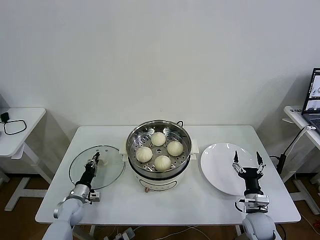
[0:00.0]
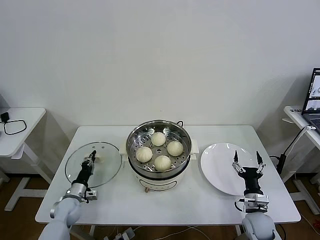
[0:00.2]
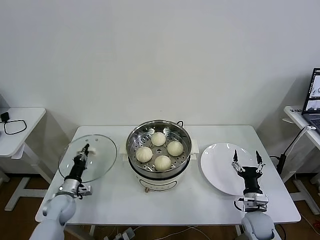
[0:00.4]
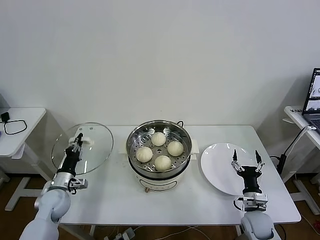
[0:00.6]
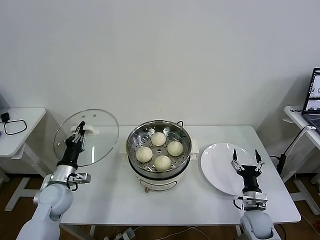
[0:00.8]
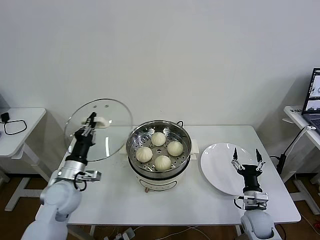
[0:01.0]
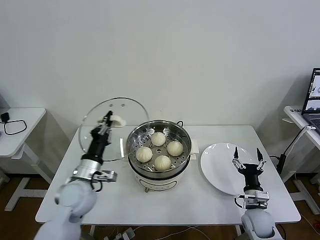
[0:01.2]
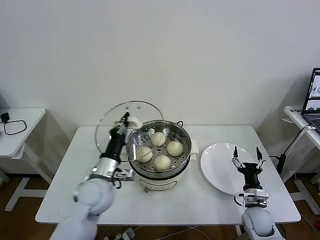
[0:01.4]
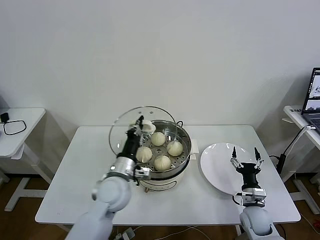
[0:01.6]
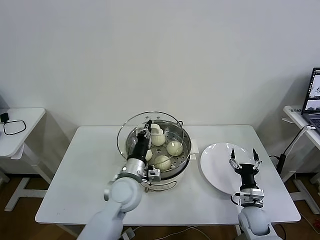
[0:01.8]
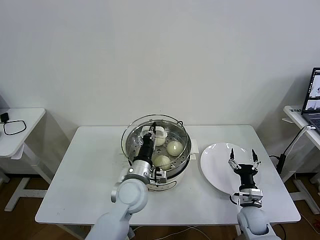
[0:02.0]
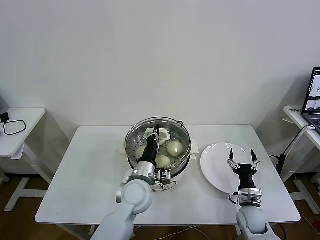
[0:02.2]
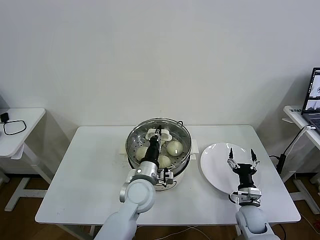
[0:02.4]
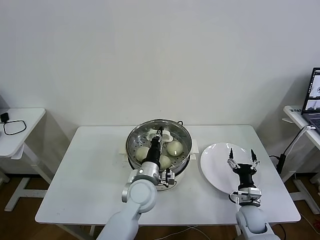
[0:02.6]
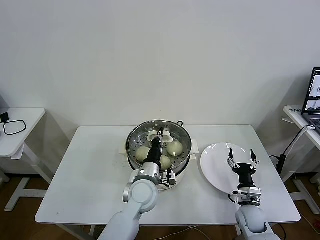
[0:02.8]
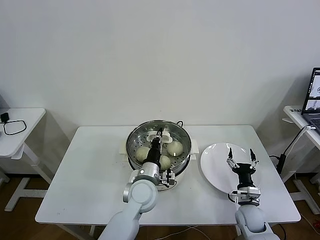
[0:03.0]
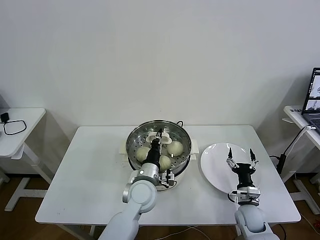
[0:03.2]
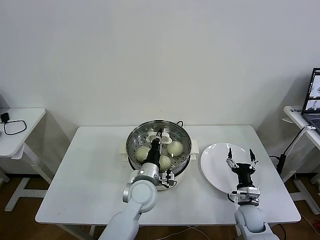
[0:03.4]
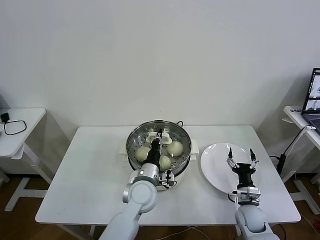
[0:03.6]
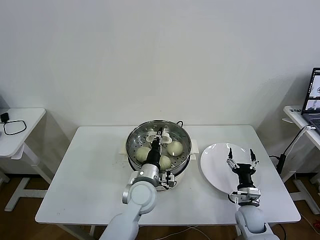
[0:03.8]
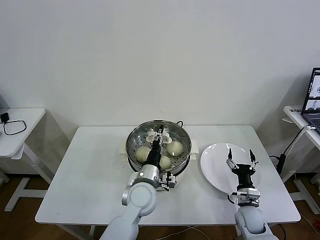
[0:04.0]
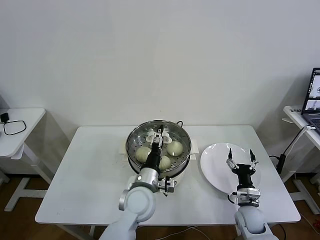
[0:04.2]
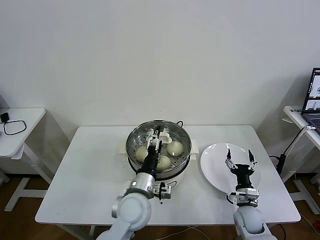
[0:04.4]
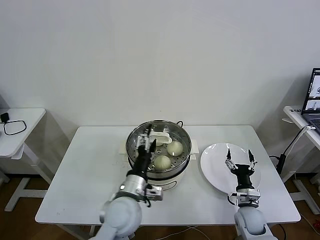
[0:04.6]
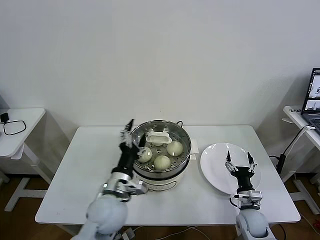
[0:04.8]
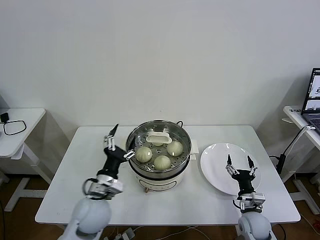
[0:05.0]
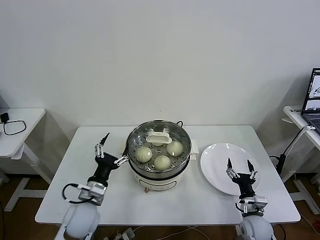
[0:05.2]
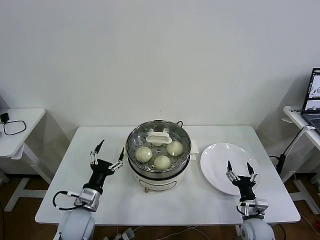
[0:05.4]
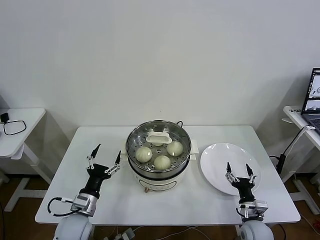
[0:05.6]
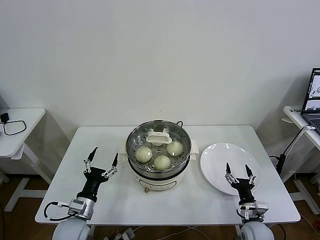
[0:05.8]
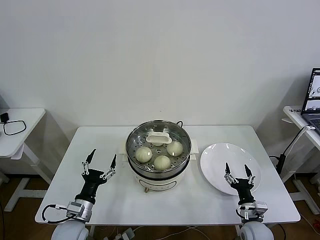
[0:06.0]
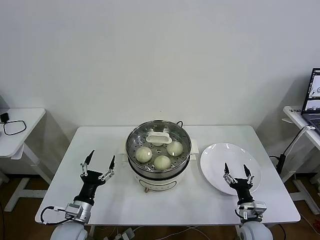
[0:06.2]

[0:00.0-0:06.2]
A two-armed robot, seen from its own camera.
Task of the whole recording: take steamed baozi put them in steamer then cover it.
Step, 0:00.4 to 0:03.8: Place the pot lid on the steamer with left gripper.
0:00.0 to 0:01.6: The left gripper travels upward and to the right by roughly 30 cm.
0:01.6 to 0:03.2: The left gripper is displaced to the right by roughly 10 cm.
0:03.2 to 0:04.6: The left gripper goes some 5 cm backward, and opens up.
0:04.6 to 0:06.2: The left gripper moves to the left and downward, roughly 20 cm. The right gripper moves some 5 cm.
